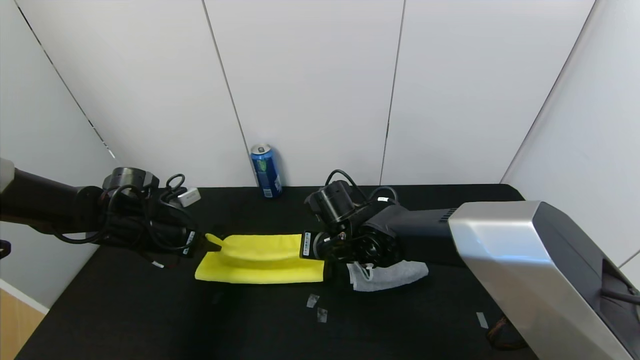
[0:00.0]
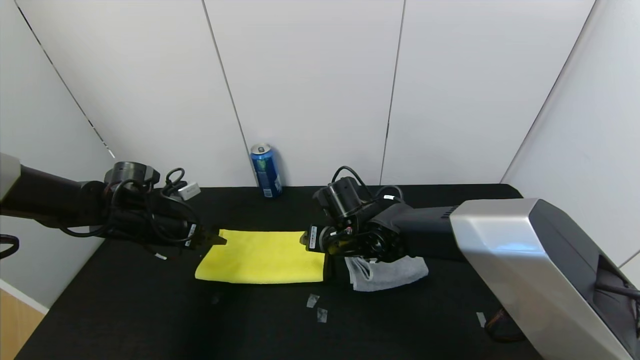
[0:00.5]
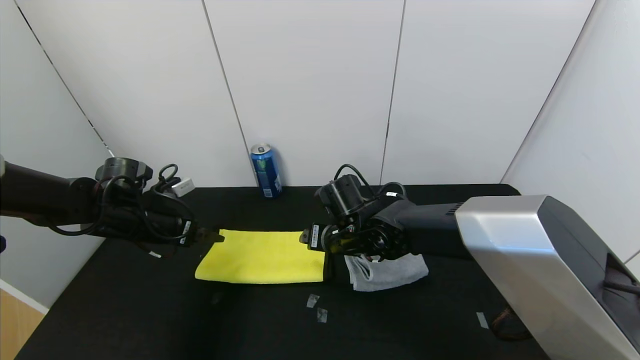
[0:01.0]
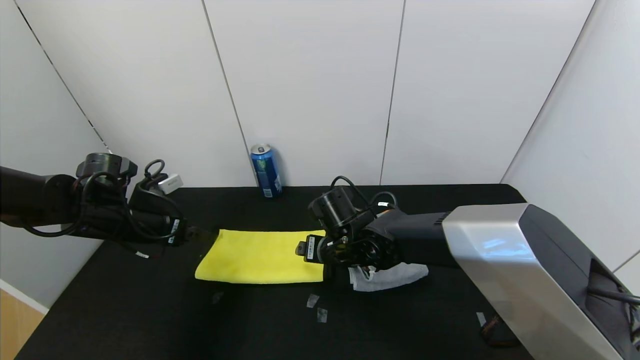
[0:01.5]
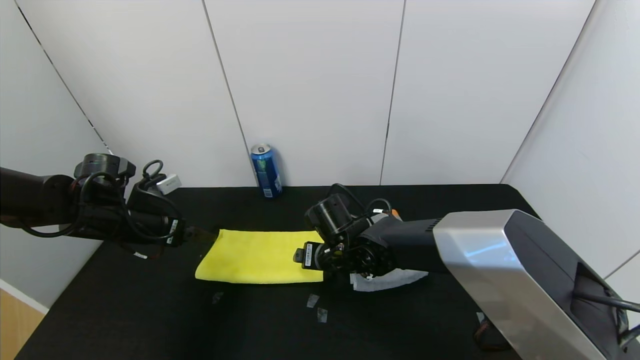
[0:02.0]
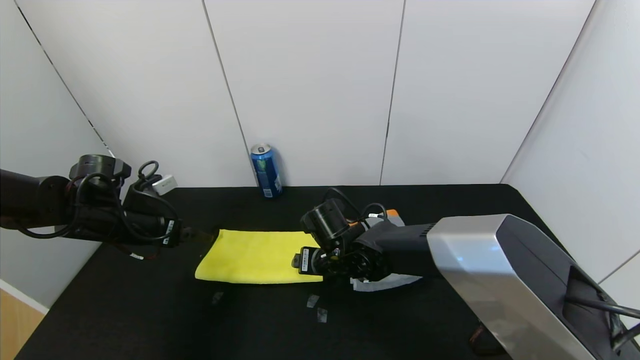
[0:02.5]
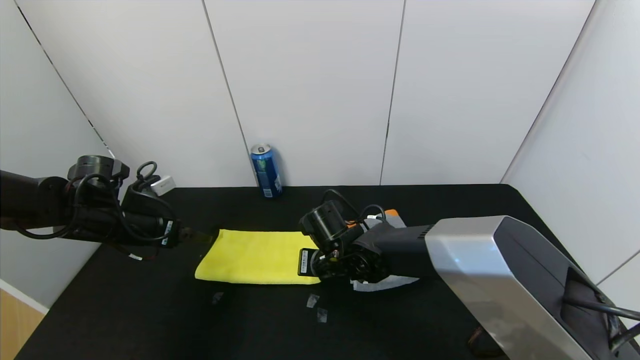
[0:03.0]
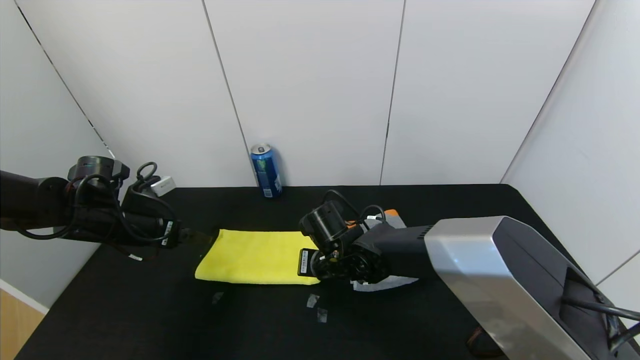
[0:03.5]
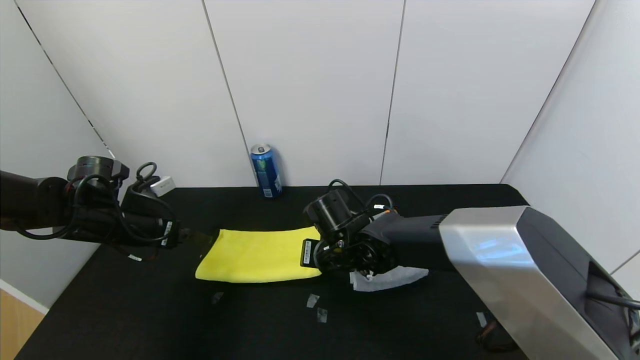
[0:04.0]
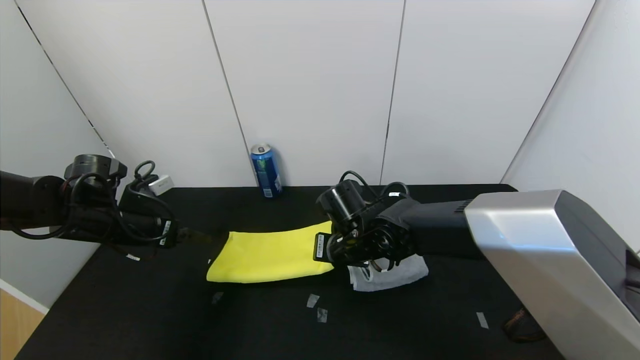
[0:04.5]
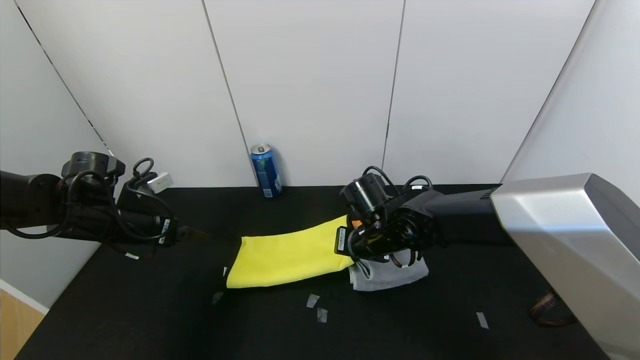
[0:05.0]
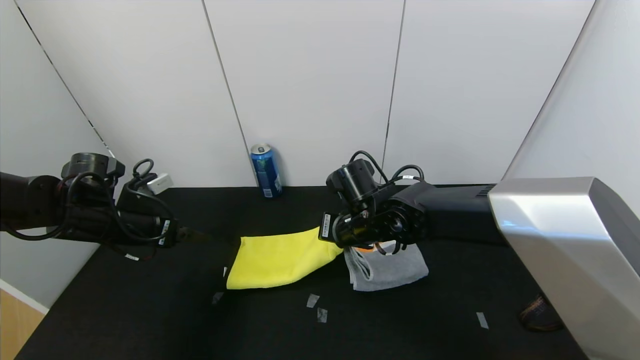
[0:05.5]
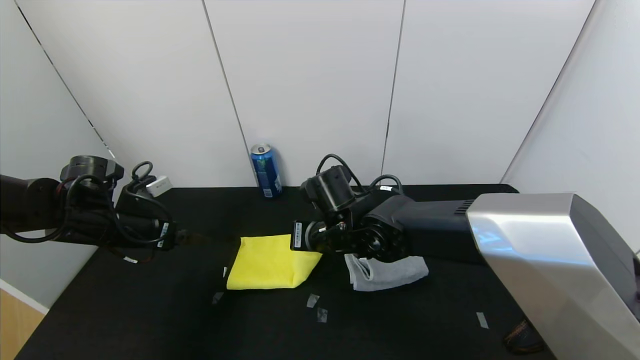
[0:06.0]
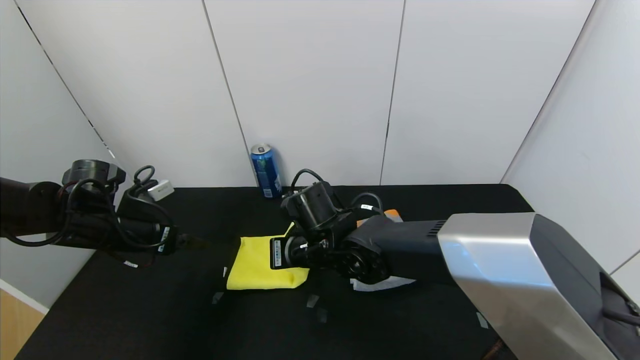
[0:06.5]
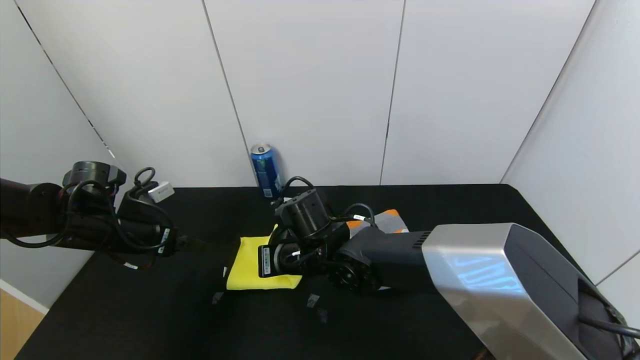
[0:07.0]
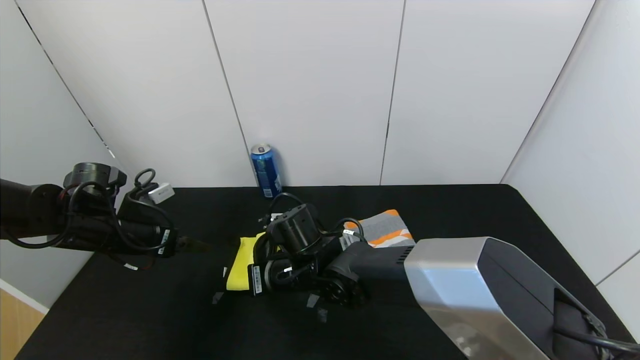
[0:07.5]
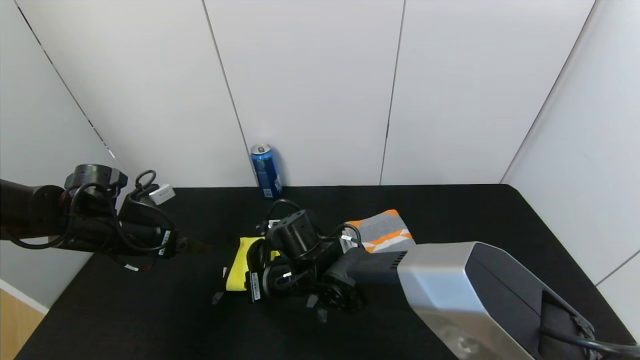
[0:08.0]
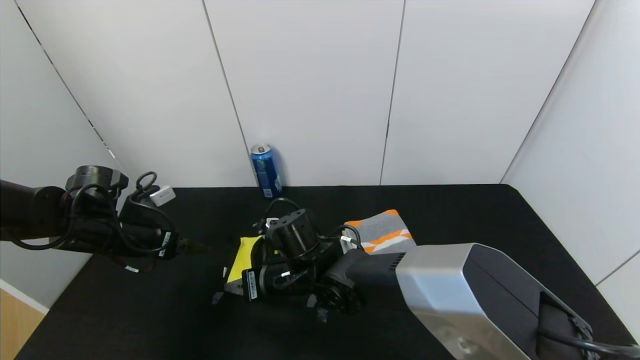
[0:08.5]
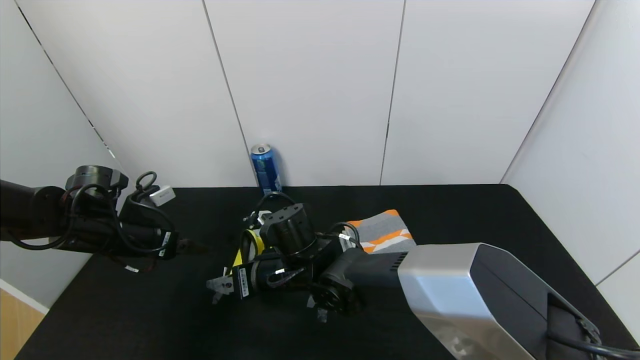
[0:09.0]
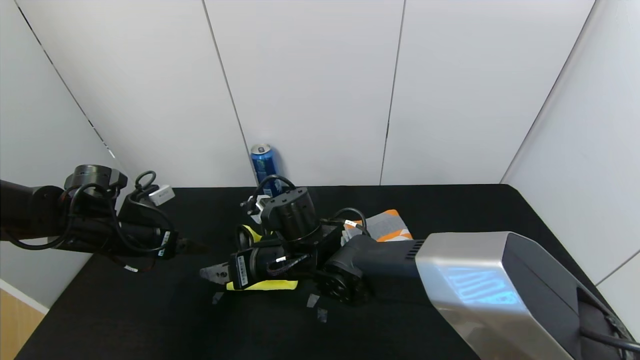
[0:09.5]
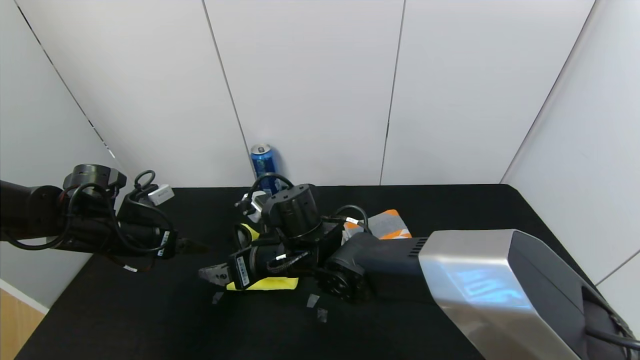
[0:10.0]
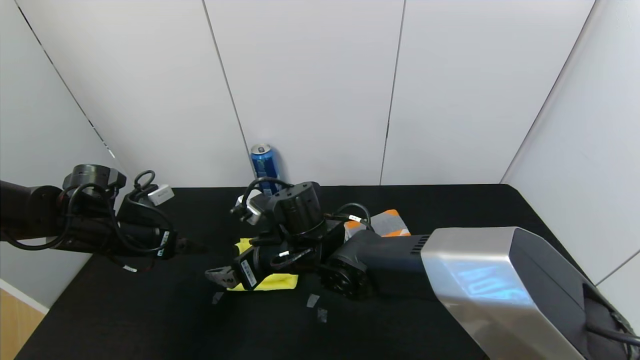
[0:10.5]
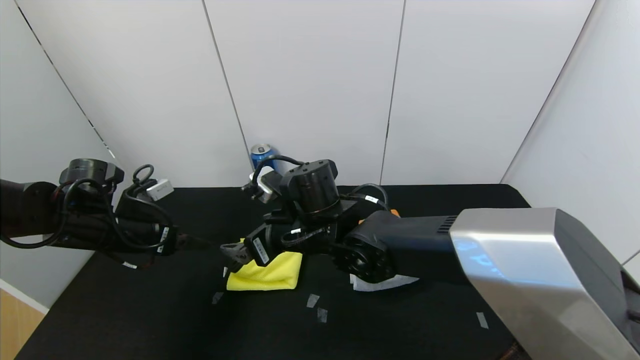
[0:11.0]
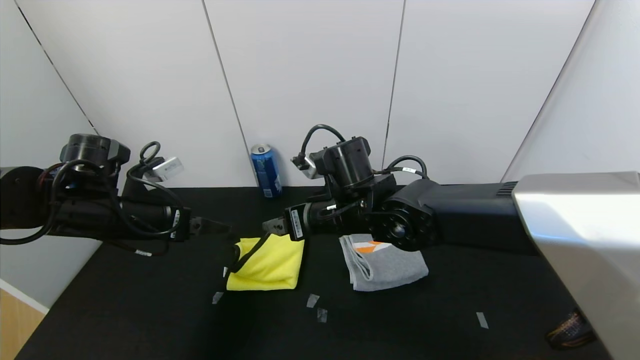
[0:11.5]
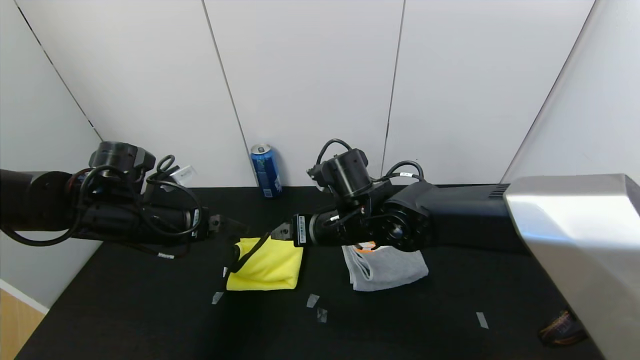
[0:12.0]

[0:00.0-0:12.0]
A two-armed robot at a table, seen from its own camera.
Task of the whole recording: Use the gripper to fold the yellow towel and grey towel in half twice,then put the yellow towel on the grey towel.
Step, 0:02.0 to 0:11.0: Fold the yellow towel from right to left with right gripper.
0:00.0 to 0:02.0: The right gripper opens up. The left gripper opens its fingers.
0:02.0 to 0:04.0: The right gripper closes its fingers.
0:06.0 to 0:08.0: The right gripper shifts approximately 10 cm downward and to the left.
0:08.0 to 0:10.0: The right gripper shifts approximately 5 cm upward, and opens.
0:10.0 to 0:12.0: Both grippers travel together to the right, some 5 cm.

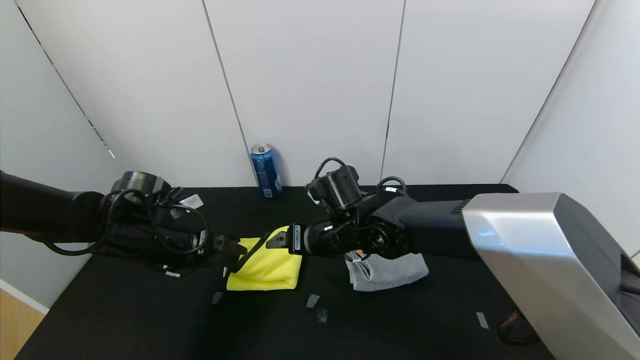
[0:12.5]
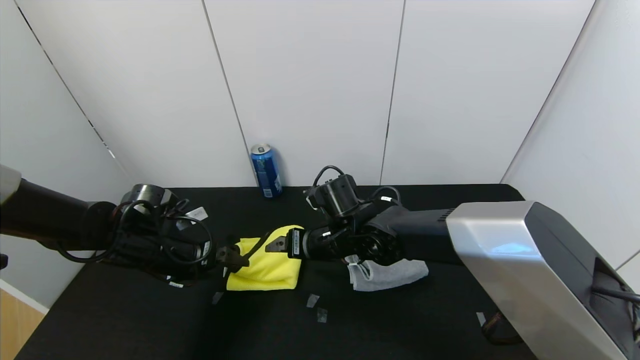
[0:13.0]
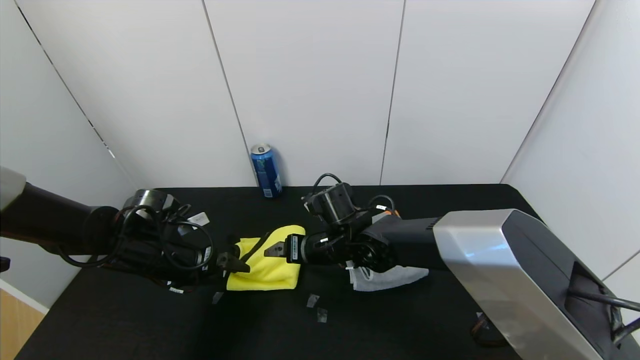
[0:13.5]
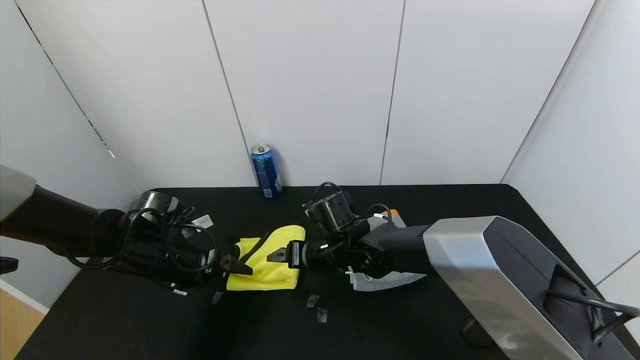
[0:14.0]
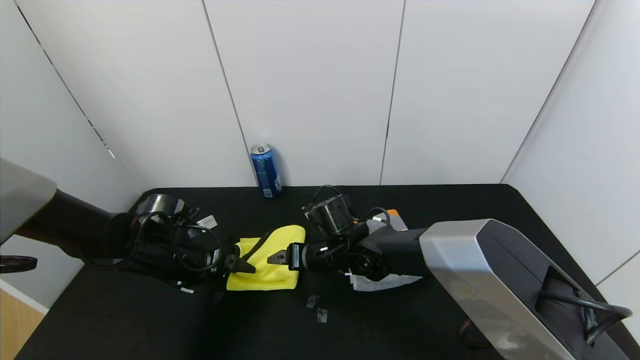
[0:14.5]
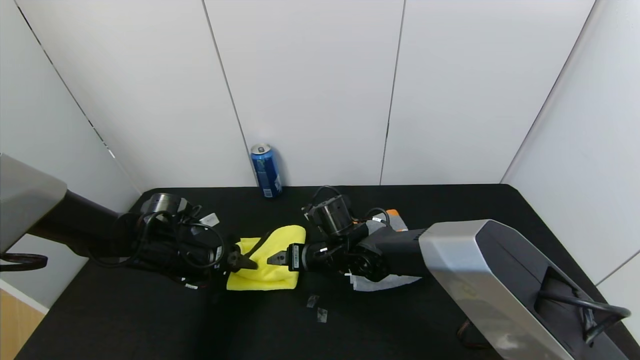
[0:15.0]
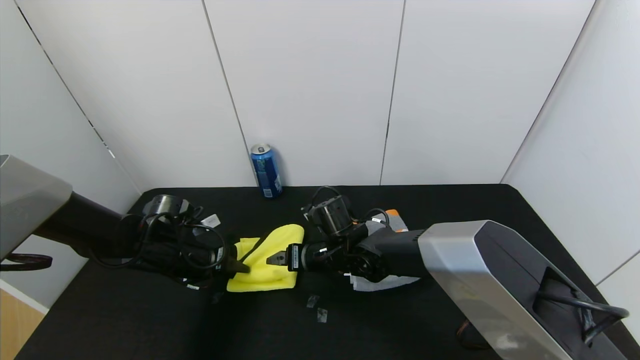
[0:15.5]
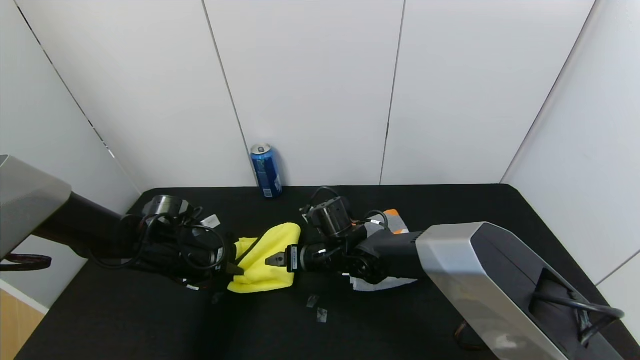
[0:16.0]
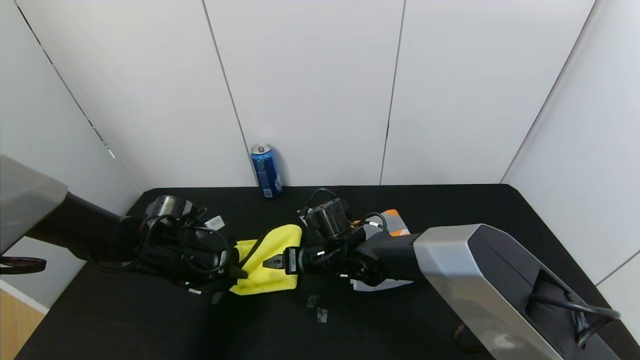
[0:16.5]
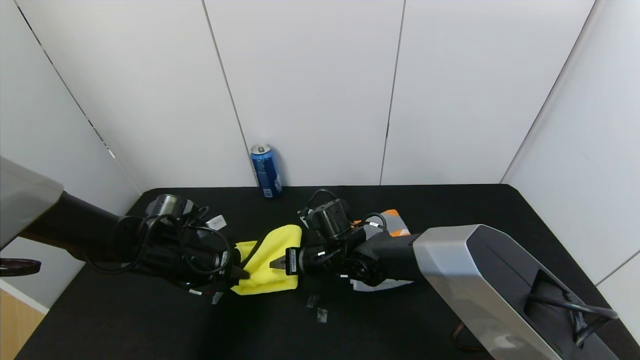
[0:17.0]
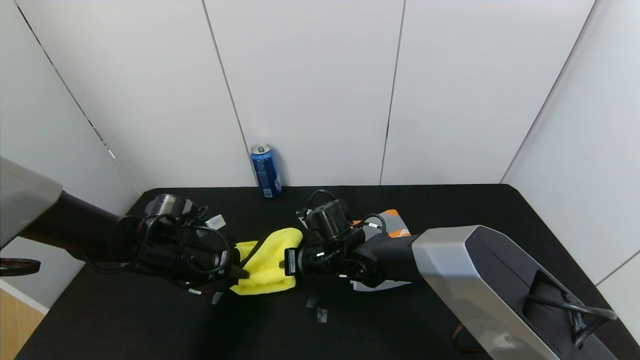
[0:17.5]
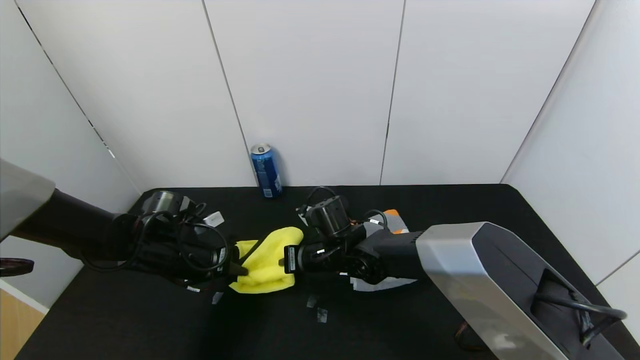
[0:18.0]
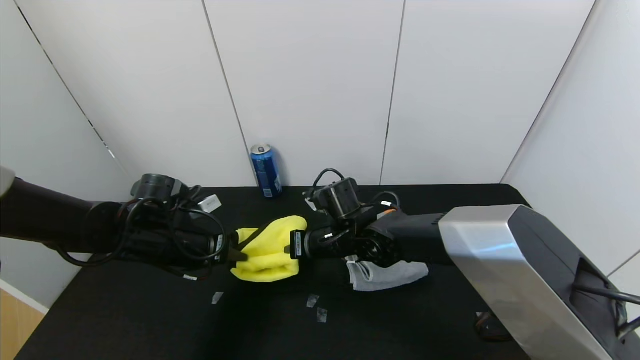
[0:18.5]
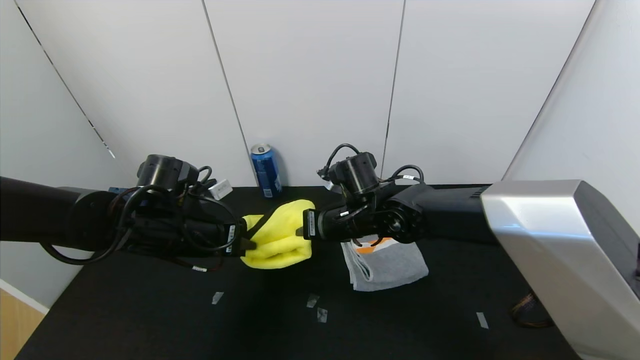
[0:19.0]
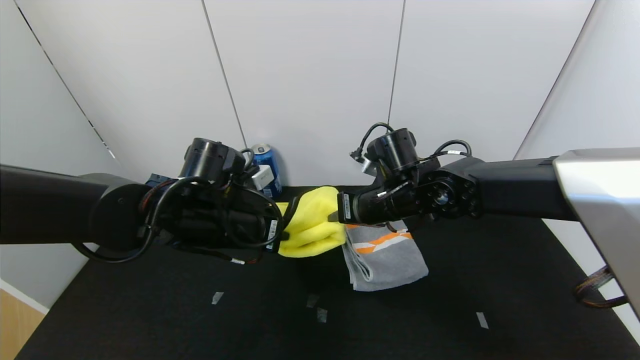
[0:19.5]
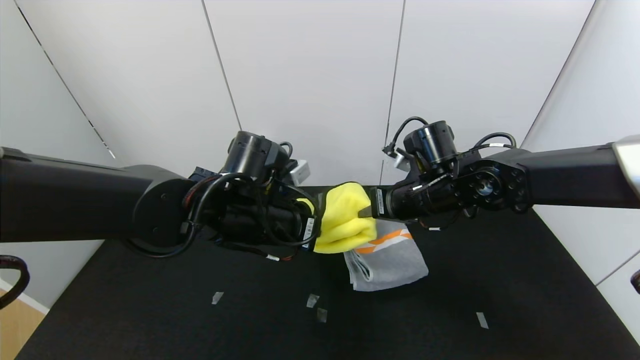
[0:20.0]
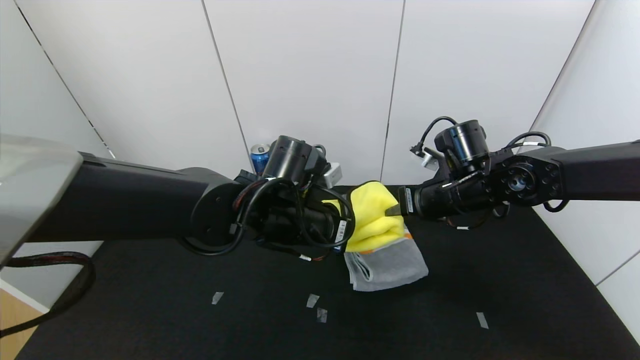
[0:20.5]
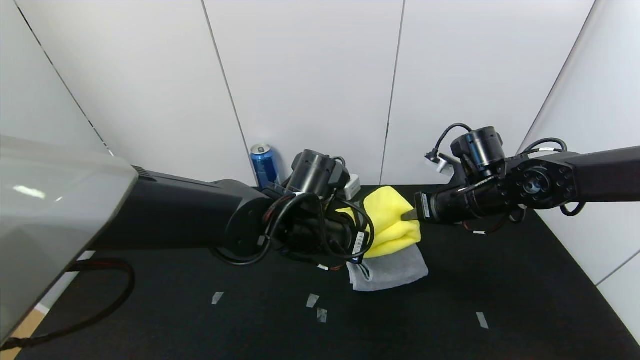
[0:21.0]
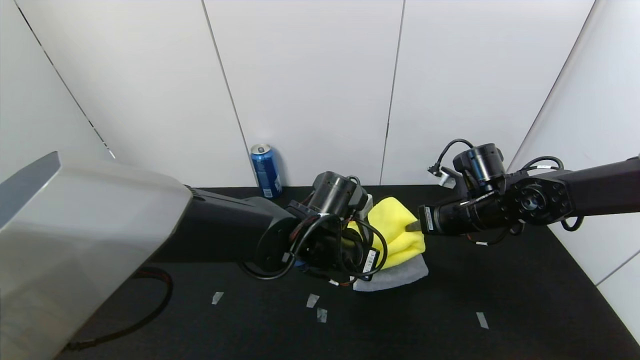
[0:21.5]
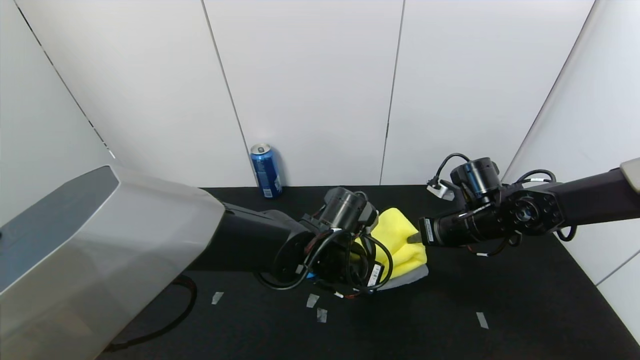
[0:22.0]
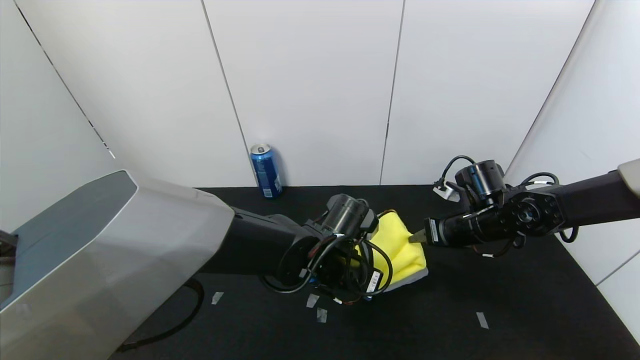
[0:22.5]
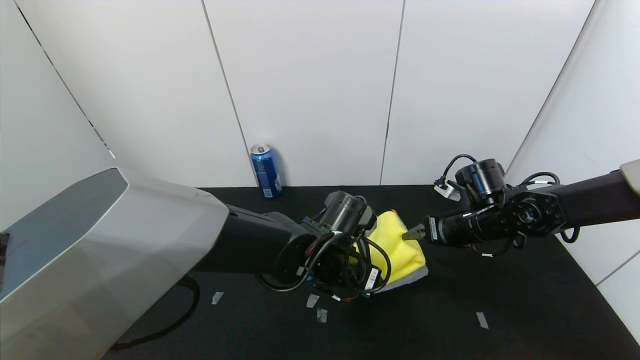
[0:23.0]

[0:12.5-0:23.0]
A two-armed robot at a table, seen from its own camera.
Task of the whole recording: Use the gripper to fold the yellow towel and grey towel in half twice,then put the yellow towel on the grey towel.
0:12.5 to 0:14.5: The right gripper goes approximately 5 cm downward.
0:14.5 to 0:16.5: The left gripper closes its fingers.
0:16.5 to 0:19.0: The grippers both shift upward by some 10 cm. The right gripper closes its fingers.
0:19.0 to 0:21.0: The two grippers go approximately 20 cm to the right.
0:21.0 to 0:23.0: The grippers both shift downward by approximately 5 cm. The right gripper opens. Meanwhile the left gripper opens up.
